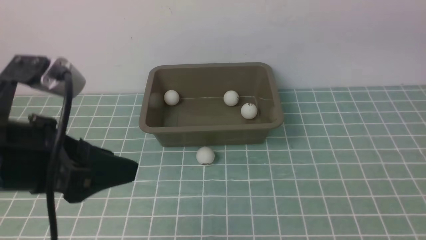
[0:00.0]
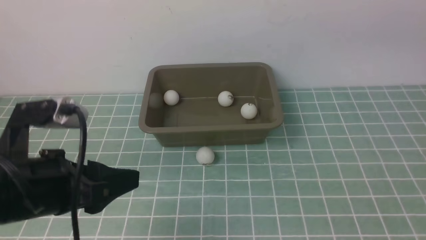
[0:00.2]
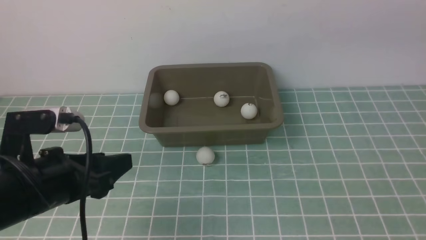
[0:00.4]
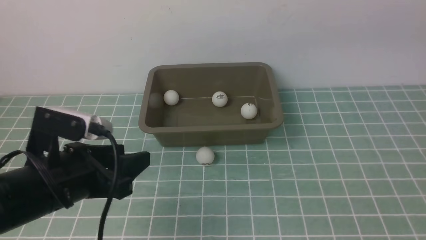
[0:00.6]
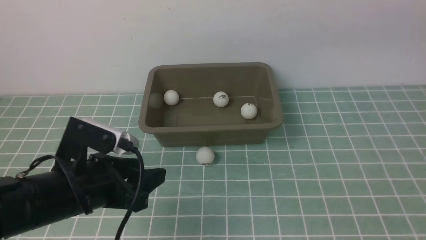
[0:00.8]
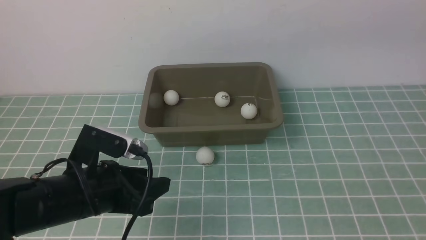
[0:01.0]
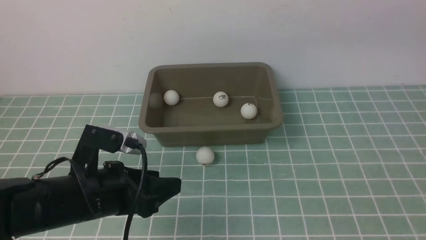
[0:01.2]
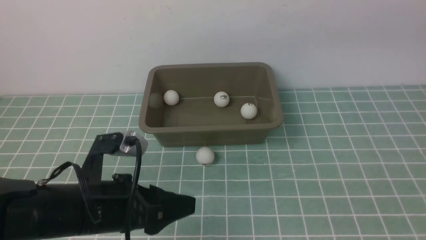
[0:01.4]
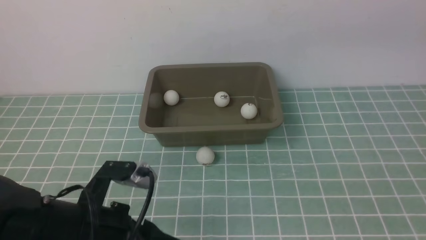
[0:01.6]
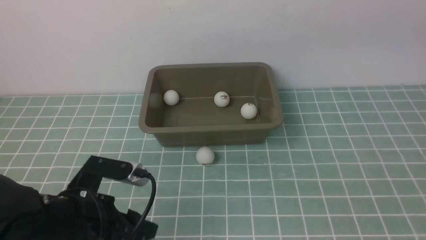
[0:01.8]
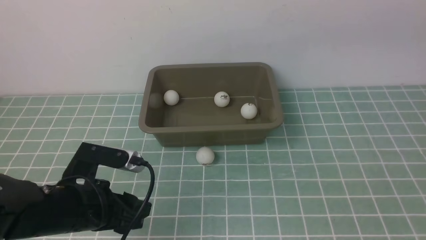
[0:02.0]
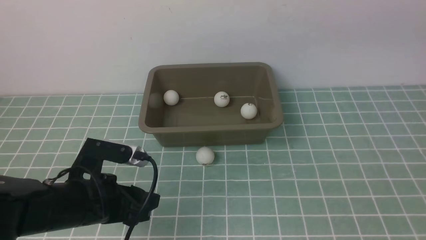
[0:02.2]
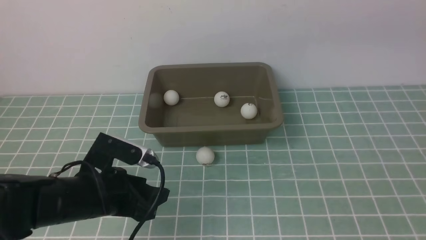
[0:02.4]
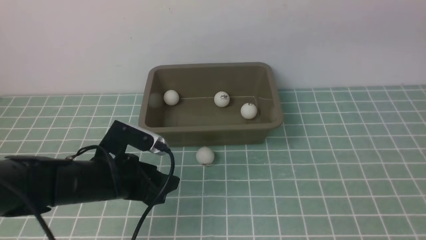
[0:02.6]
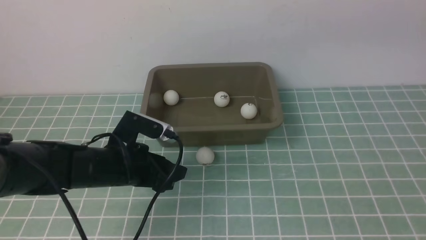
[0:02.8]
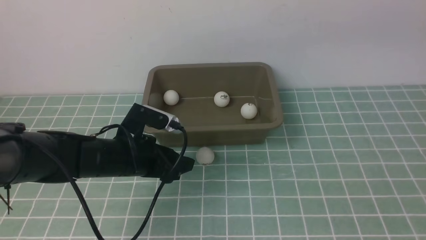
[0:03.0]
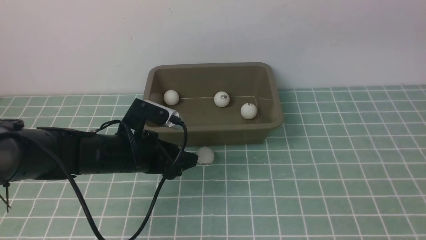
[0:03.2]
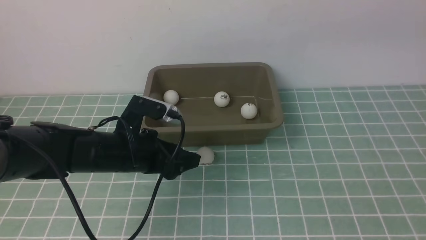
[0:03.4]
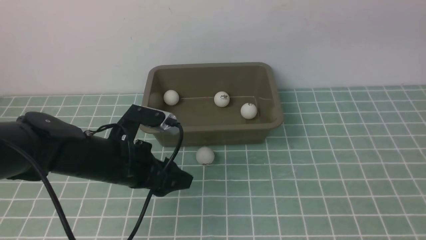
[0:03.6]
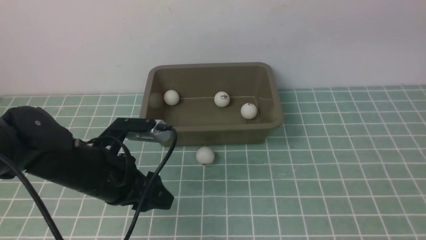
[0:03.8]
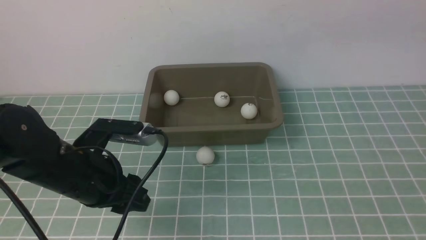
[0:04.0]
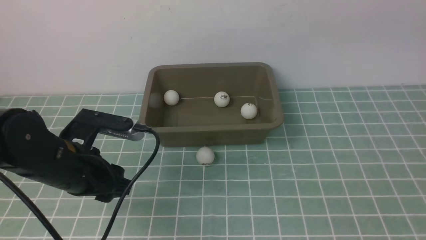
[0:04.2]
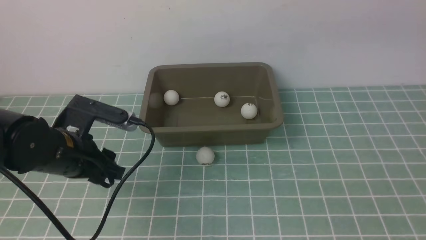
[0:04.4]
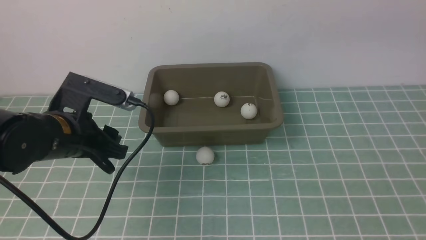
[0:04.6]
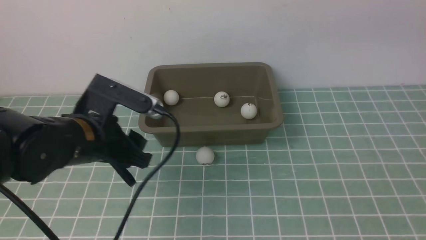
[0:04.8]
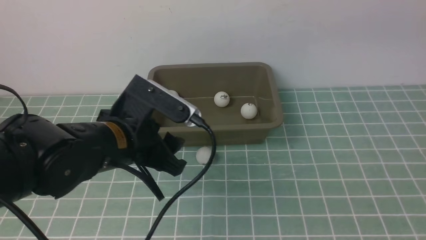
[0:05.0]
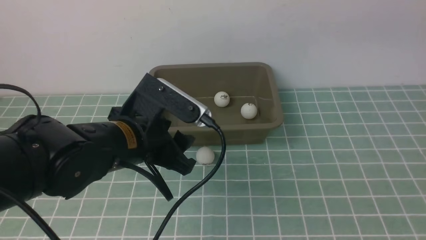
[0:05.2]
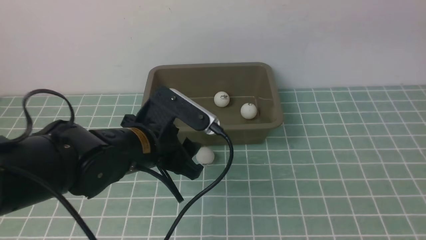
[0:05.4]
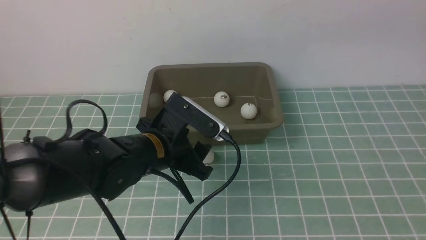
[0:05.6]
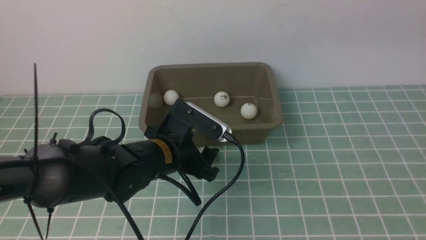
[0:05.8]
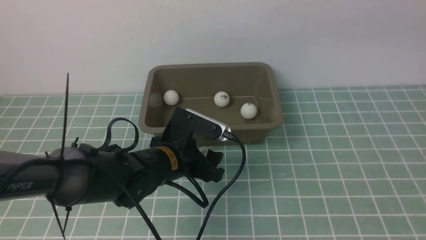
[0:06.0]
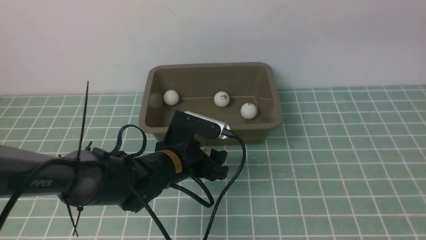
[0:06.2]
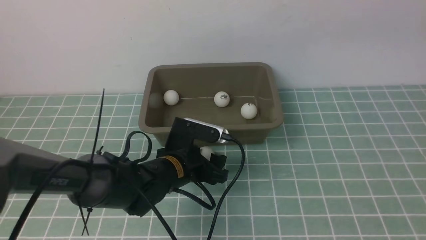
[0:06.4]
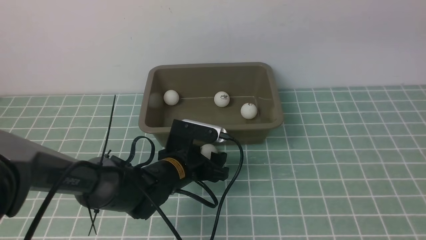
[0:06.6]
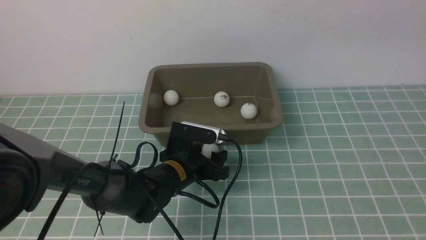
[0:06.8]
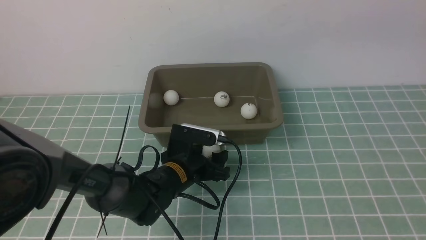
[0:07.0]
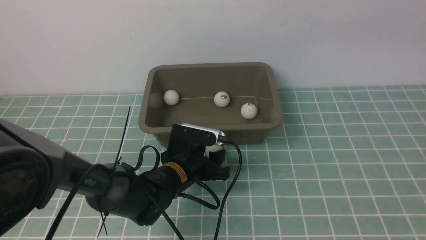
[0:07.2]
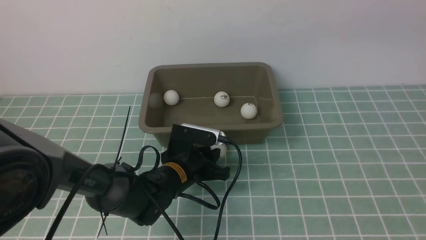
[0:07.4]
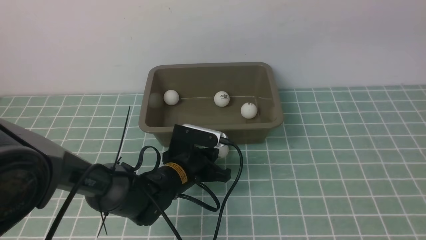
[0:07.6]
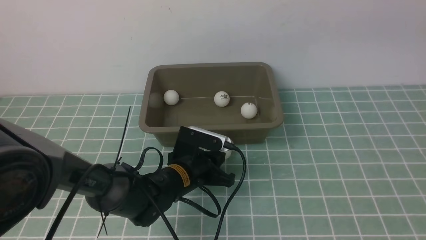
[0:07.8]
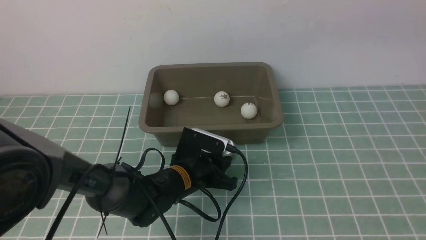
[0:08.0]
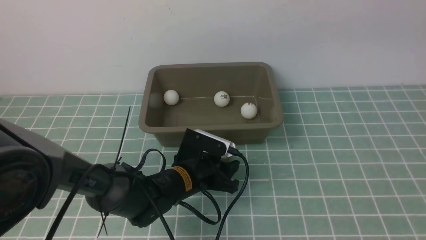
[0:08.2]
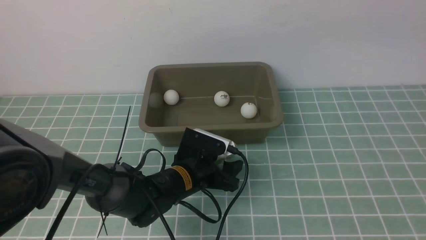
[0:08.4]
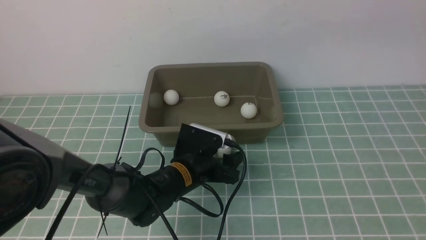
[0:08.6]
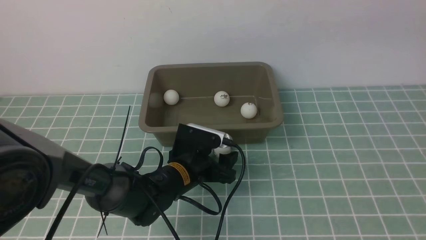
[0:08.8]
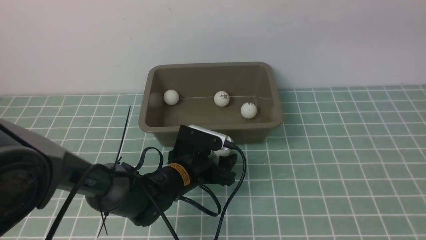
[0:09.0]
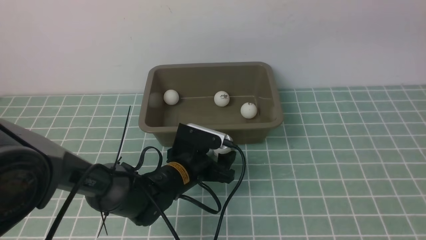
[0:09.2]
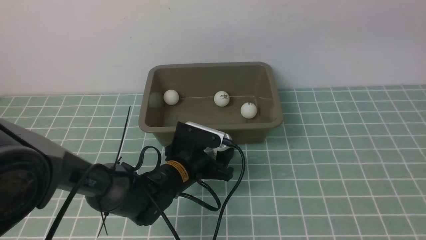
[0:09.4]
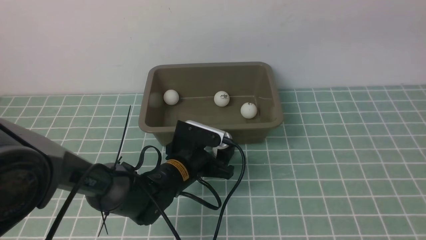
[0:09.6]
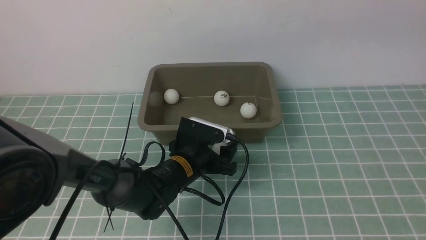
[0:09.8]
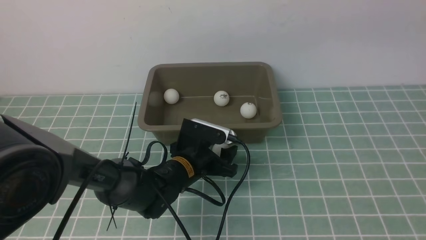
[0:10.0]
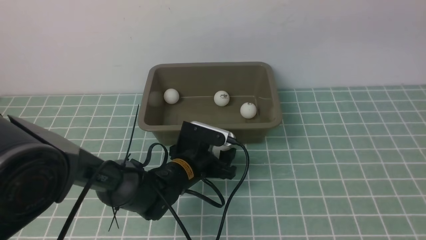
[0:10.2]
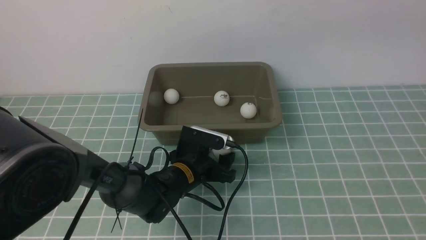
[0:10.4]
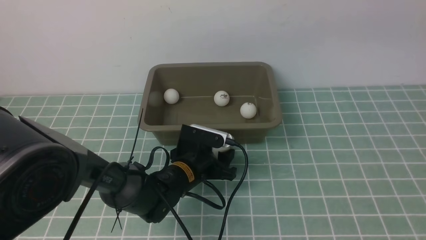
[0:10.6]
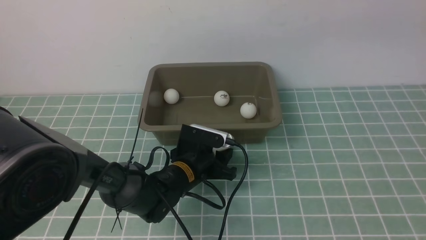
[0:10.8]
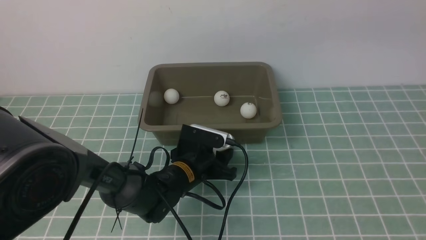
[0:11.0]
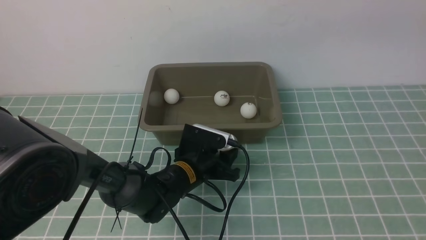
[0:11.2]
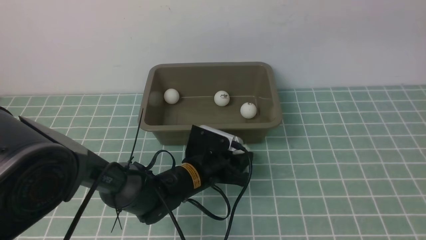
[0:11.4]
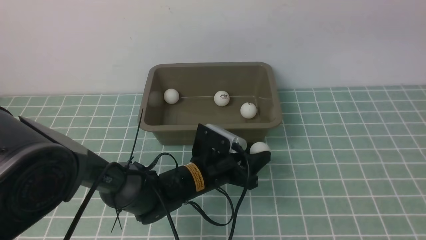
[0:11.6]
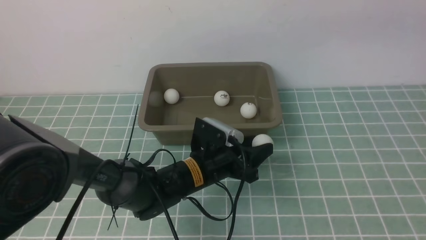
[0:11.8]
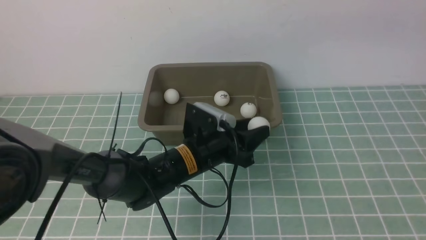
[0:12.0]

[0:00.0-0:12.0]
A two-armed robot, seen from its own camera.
Step, 0:00.0 to 0:11.6: use the left arm to clamp the table tennis ball closest to it.
0:00.0 to 0:01.6: The left gripper heads downward, covering approximately 15 cm.
0:01.6 to 0:03.0: The left gripper shifts approximately 10 cm forward.
0:03.0 to 0:04.4: The left gripper goes about 5 cm upward.
0:04.4 to 0:06.0: The left gripper travels downward and to the right by roughly 15 cm.
0:06.0 to 0:07.6: The left gripper closes its fingers.
0:07.6 to 0:09.0: The left gripper opens up.
0:09.0 to 0:10.4: The grippers make only small movements.
0:10.4 to 0:12.0: The left gripper heads upward, covering approximately 10 cm.

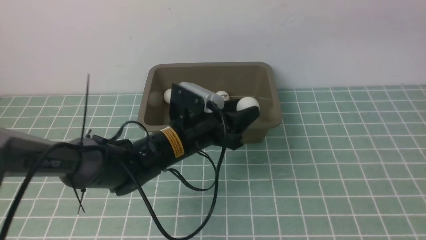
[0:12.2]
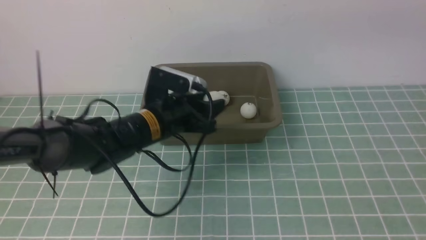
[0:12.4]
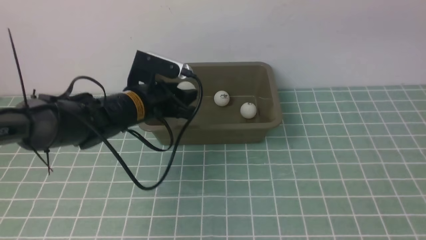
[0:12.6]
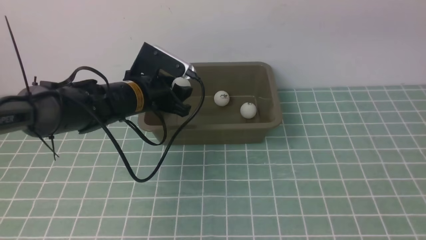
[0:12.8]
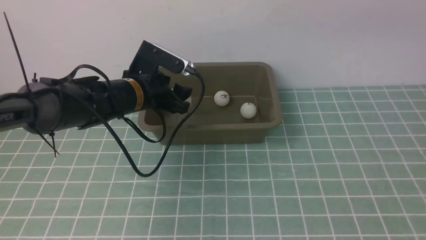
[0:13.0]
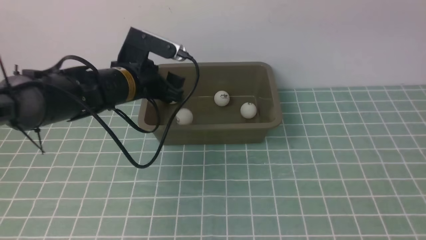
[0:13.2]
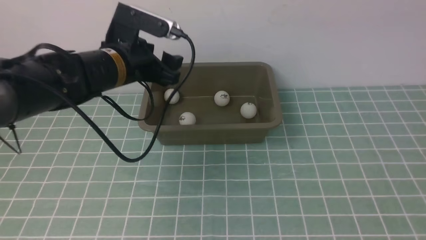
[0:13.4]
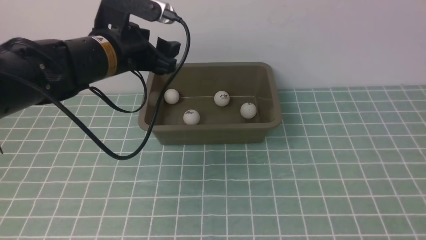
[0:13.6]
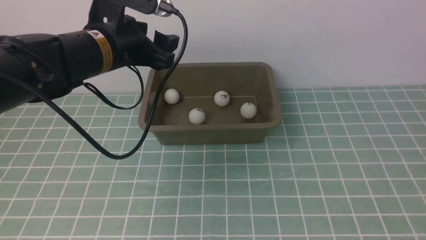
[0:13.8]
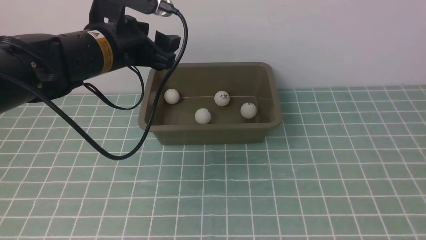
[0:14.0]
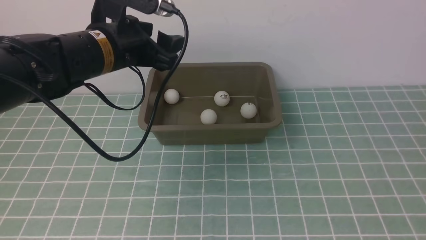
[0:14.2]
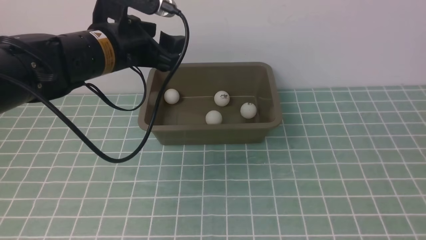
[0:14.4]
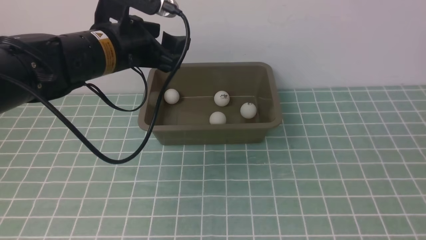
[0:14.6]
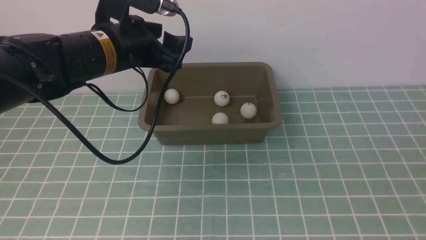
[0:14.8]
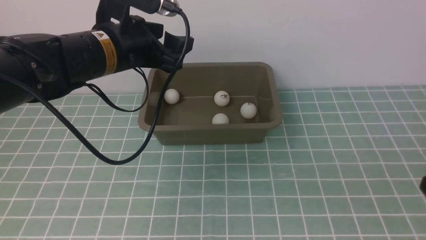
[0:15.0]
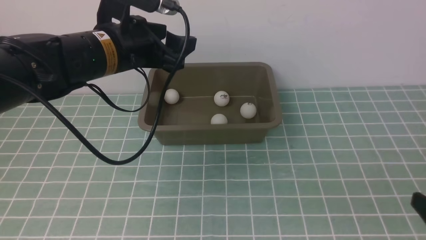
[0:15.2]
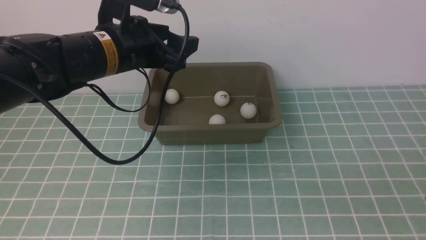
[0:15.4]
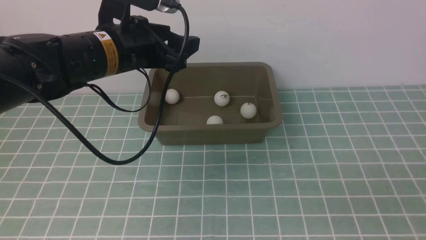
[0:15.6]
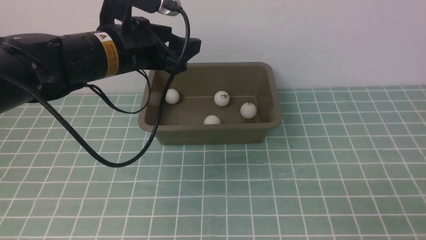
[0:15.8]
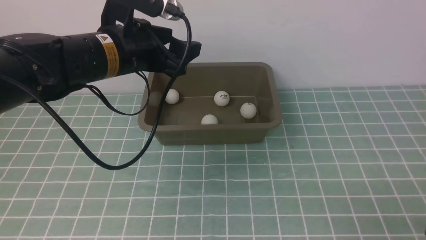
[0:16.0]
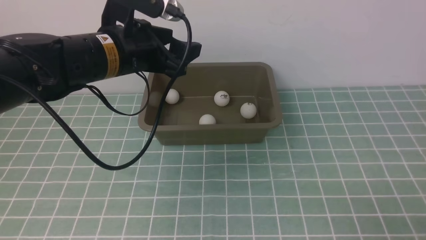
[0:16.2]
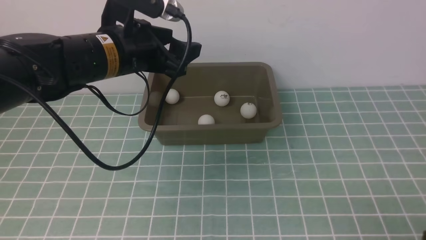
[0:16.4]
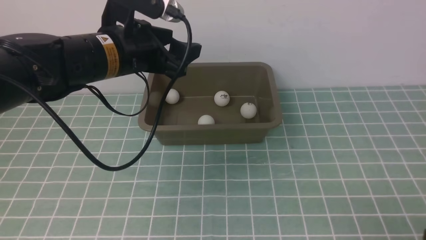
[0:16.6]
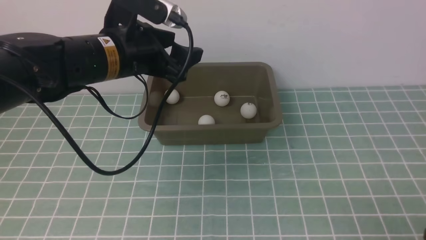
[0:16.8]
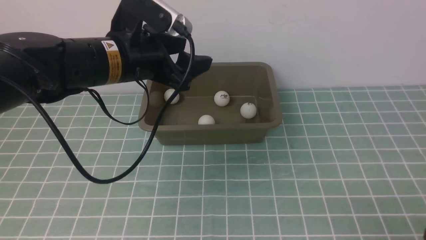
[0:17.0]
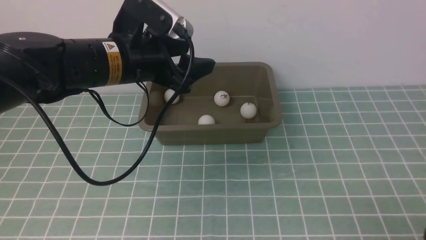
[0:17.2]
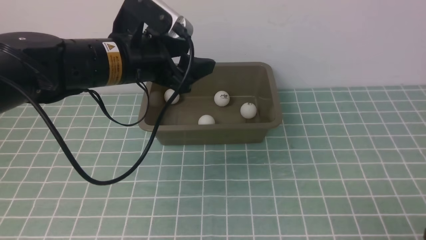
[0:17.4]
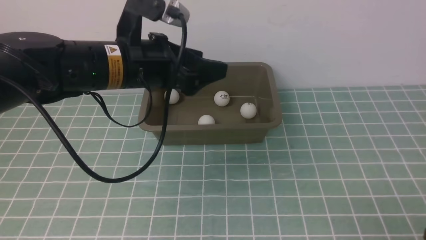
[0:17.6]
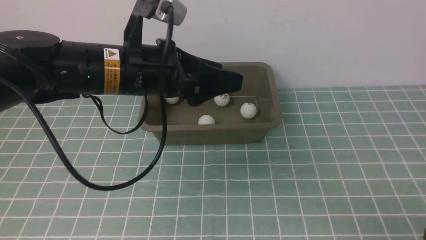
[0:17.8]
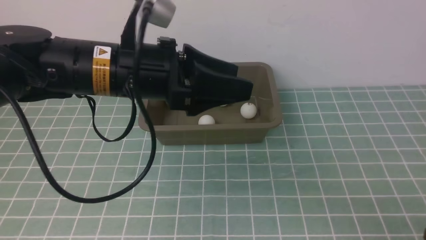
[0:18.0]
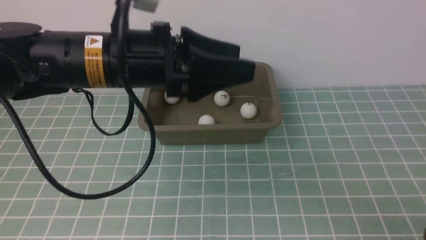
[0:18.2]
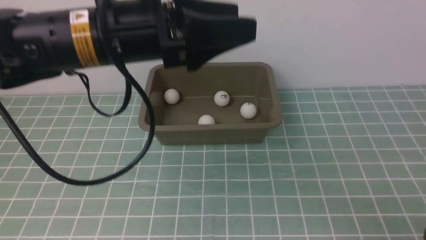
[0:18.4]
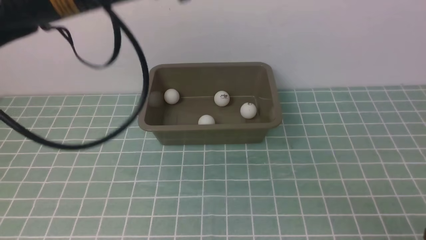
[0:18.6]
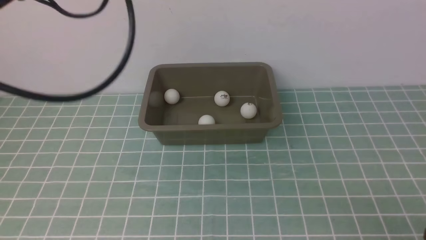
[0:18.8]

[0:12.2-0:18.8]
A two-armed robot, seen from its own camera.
Step, 0:12.2 to 0:13.2: use the left arm to put the table tennis ball into the box.
0:12.2 to 0:13.8: The left gripper is displaced upward and to the left by some 15 cm. The right gripper shifts approximately 15 cm backward.
0:13.8 to 0:15.4: The right gripper heads downward, covering some 25 cm.
0:15.4 to 0:17.2: The right gripper shifts roughly 10 cm downward.
0:17.2 to 0:18.8: The left gripper moves upward, approximately 15 cm.
